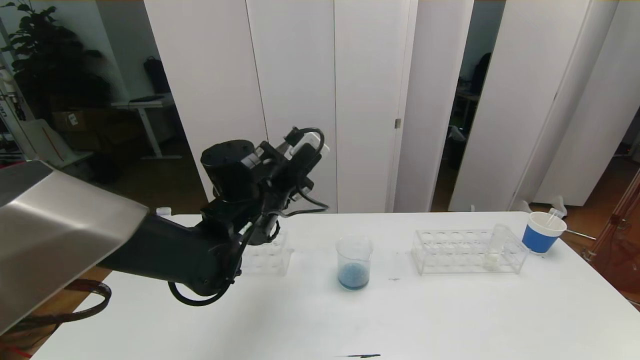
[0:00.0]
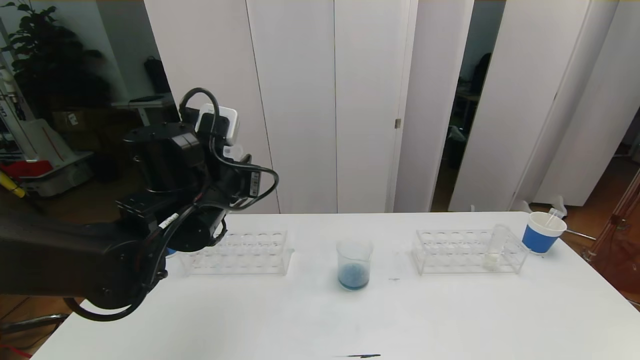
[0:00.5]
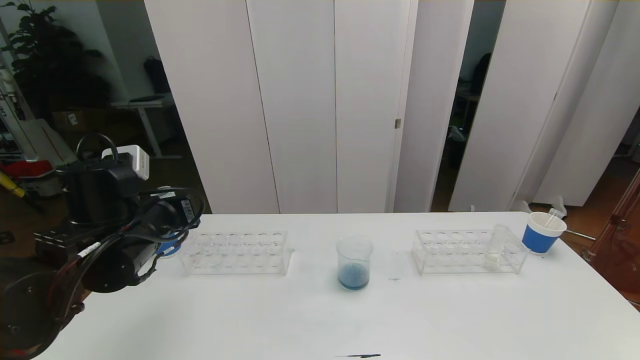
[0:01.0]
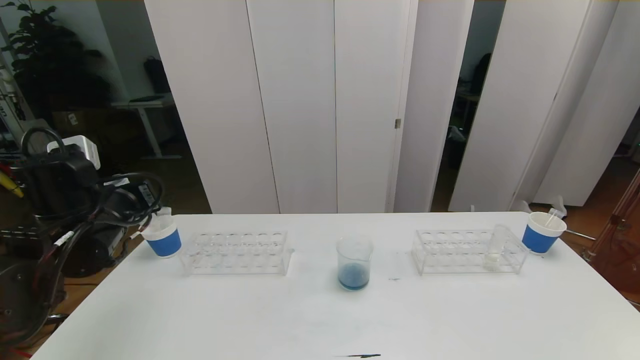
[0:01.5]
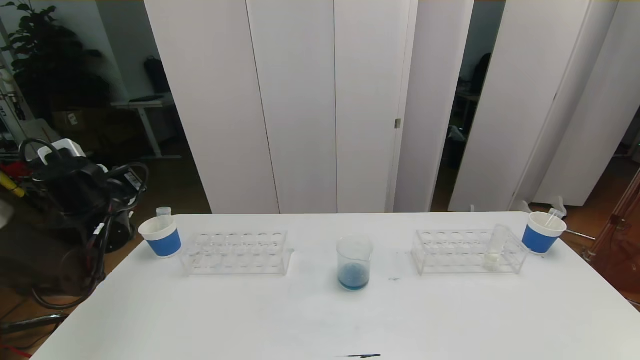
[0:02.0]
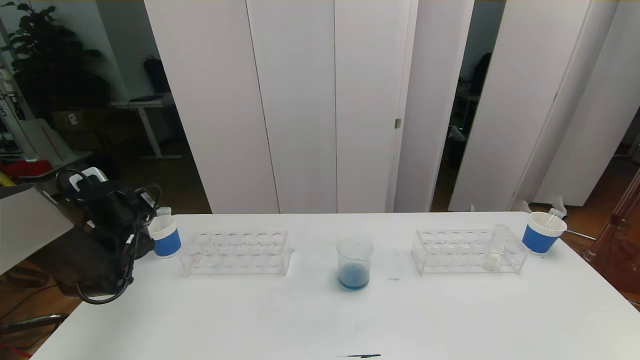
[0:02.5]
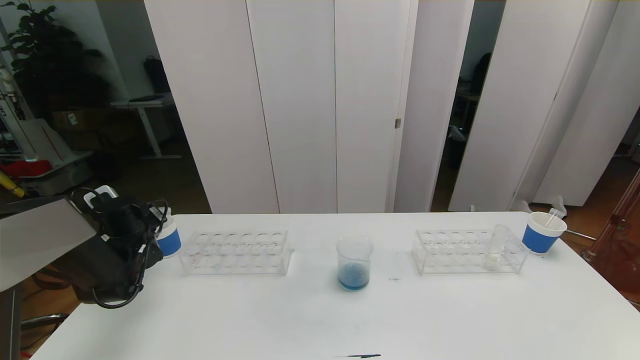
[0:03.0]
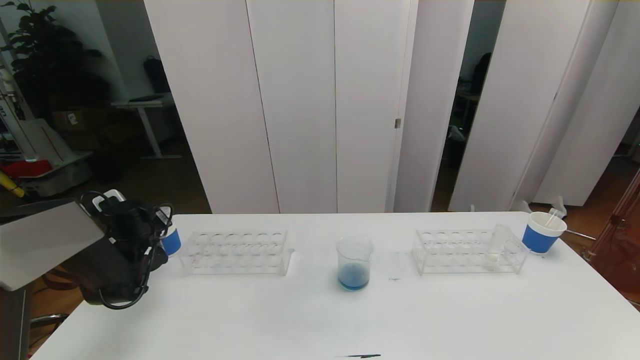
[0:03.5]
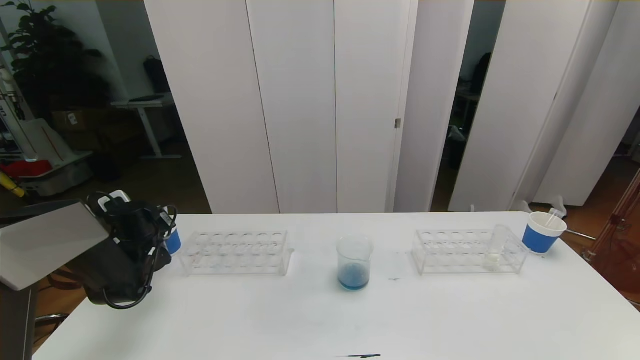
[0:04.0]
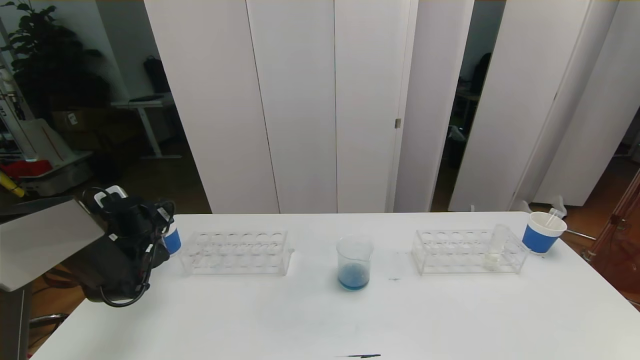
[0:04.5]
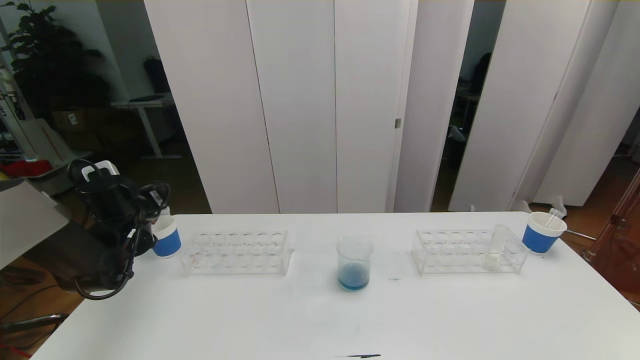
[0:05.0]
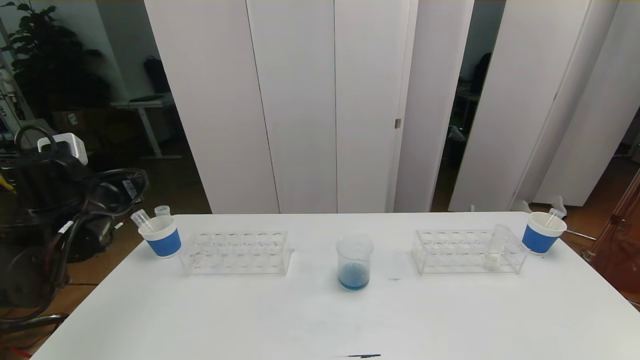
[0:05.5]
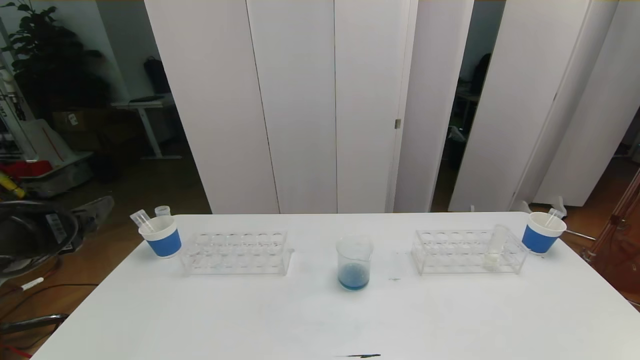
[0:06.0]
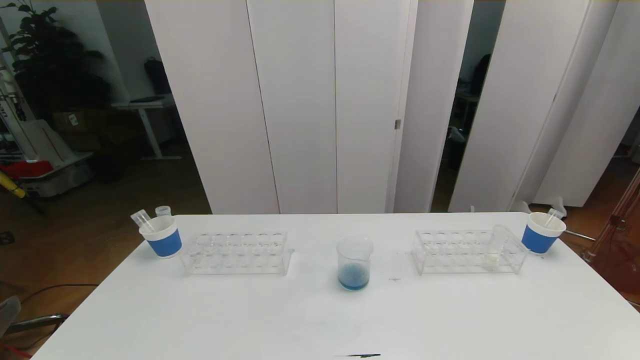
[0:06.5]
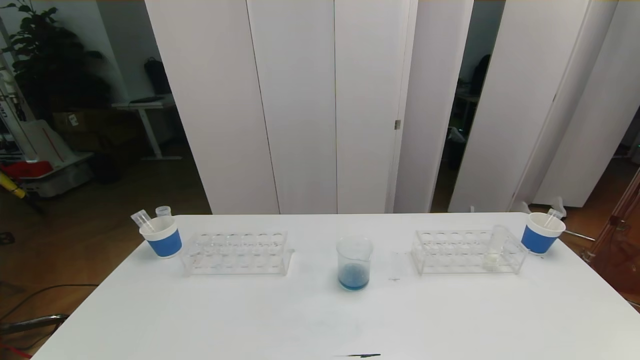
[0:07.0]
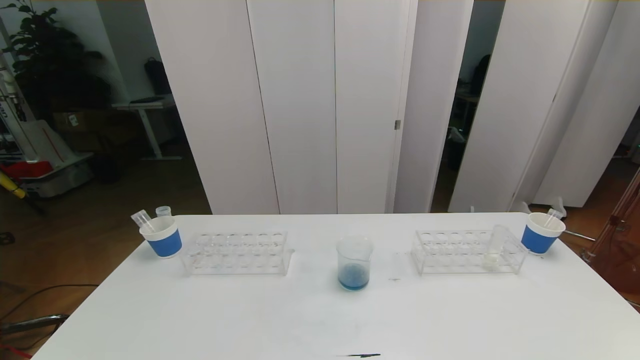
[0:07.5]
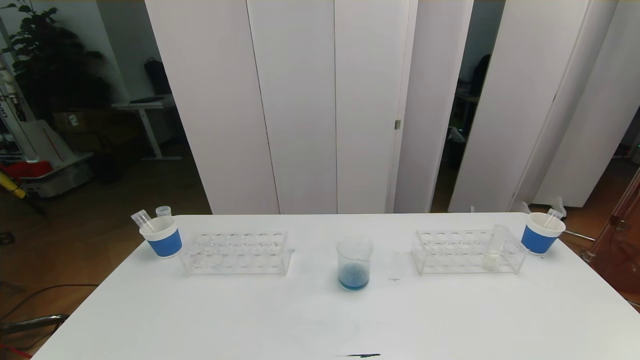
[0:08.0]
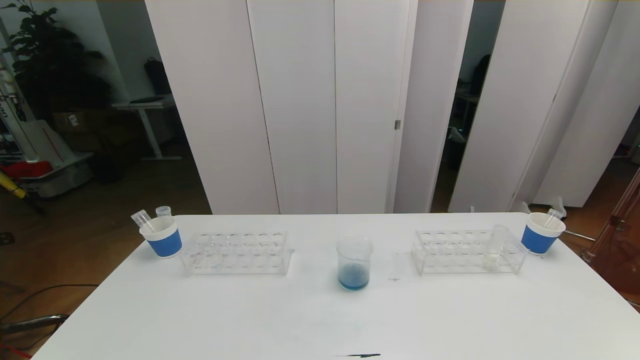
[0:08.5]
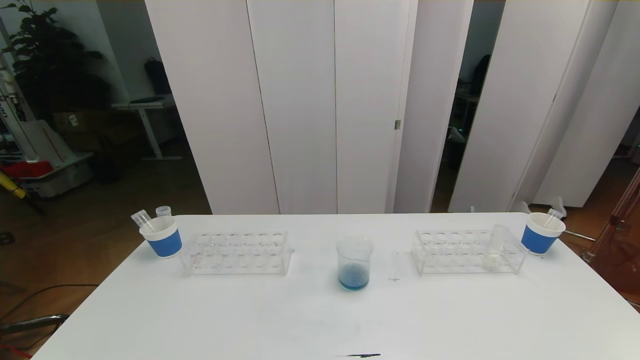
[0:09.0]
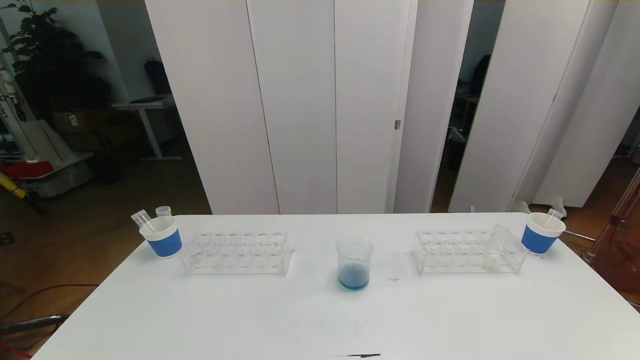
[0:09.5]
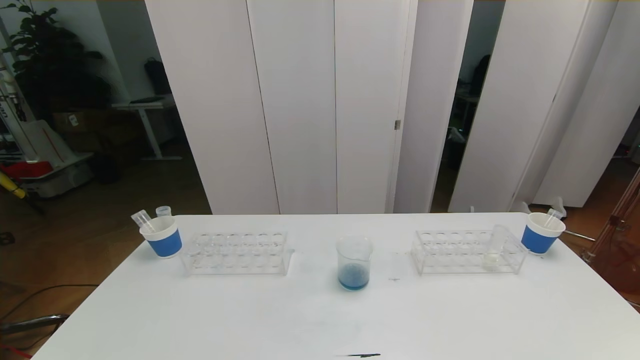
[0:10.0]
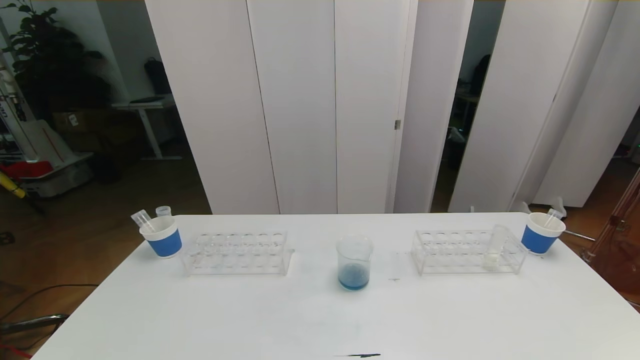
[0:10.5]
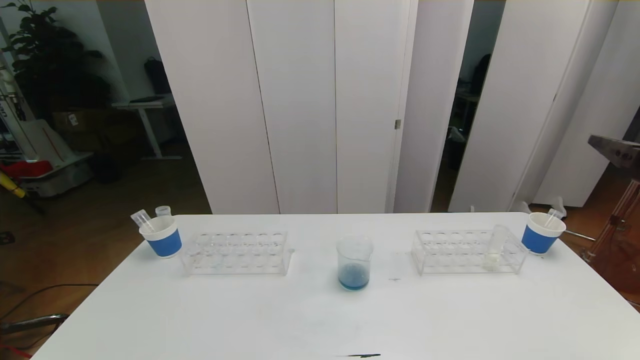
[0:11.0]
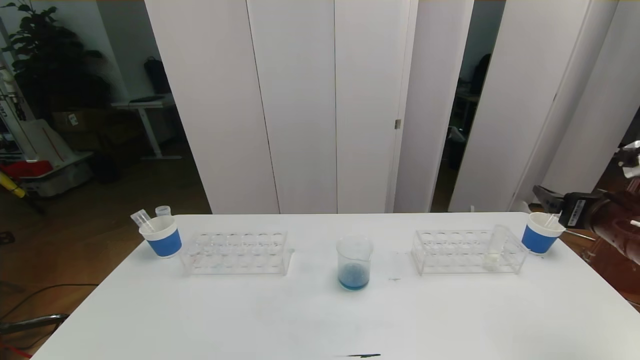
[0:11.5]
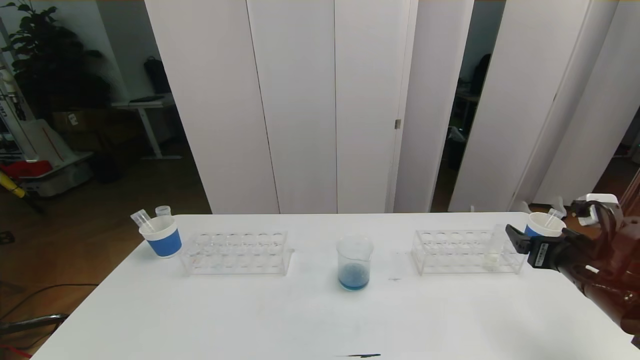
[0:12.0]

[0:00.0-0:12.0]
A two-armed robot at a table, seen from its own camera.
Task of the whole recording: pick up the test tube with red pigment the test tube with blue pigment and the test tube with white pigment by grippers and pour them into the beaker.
Step, 0:00.0 to 0:09.0: Pour the orange reagent into the graduated cylinder and place the test tube into the paper cup.
0:00.0 to 0:02.0: The left gripper is displaced to the left by roughly 25 cm.
0:02.0 to 0:04.0: The left gripper moves downward and forward, about 10 cm, and opens.
0:04.0 to 0:06.0: The left gripper goes approximately 30 cm backward and upward, and opens up.
0:10.0 to 0:12.0: The right gripper shifts some 30 cm forward and downward.

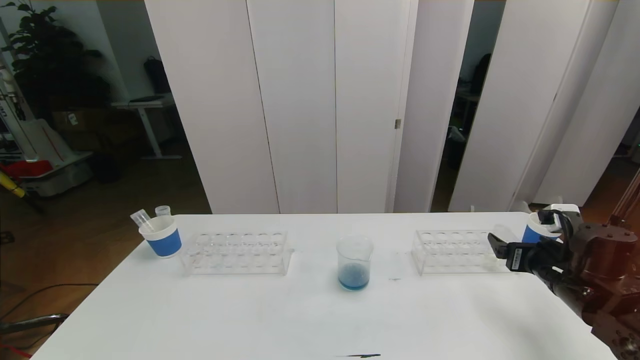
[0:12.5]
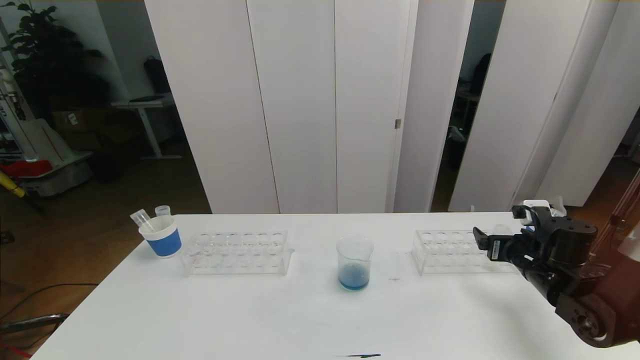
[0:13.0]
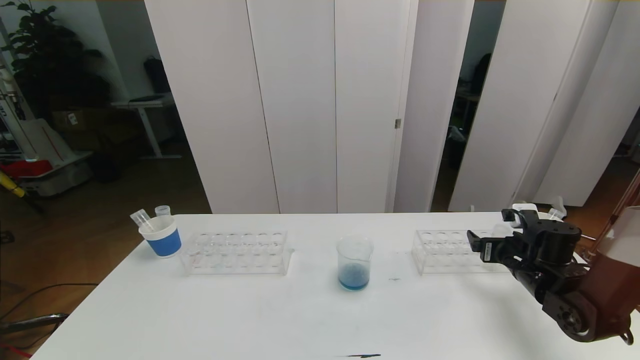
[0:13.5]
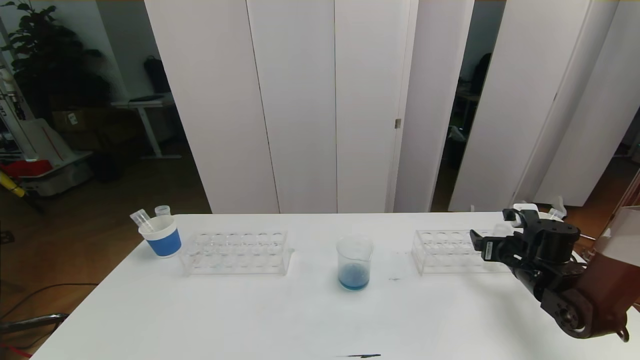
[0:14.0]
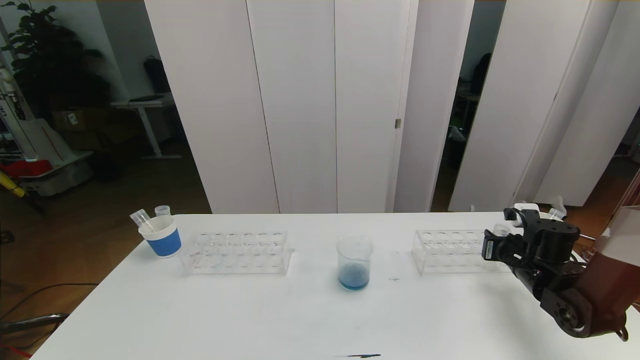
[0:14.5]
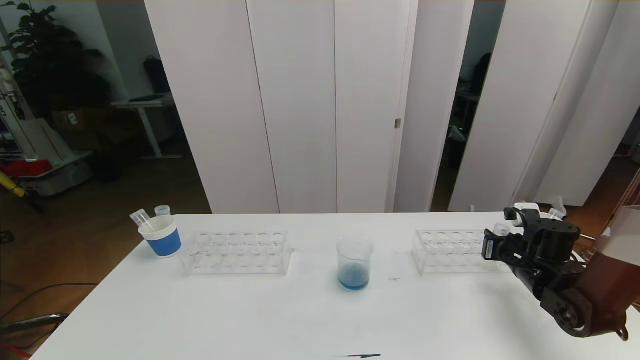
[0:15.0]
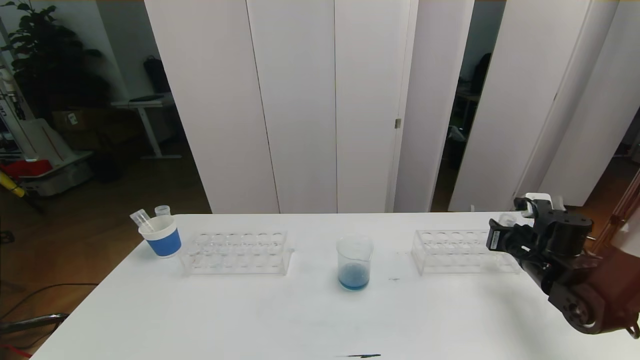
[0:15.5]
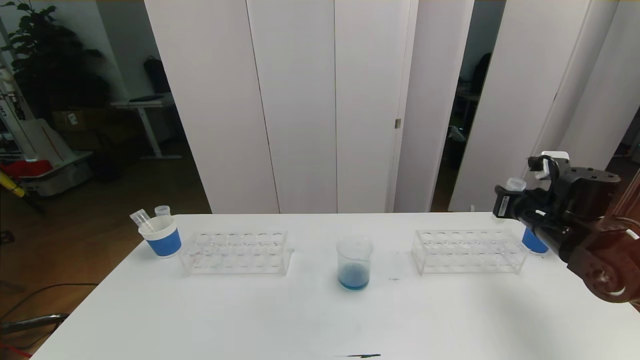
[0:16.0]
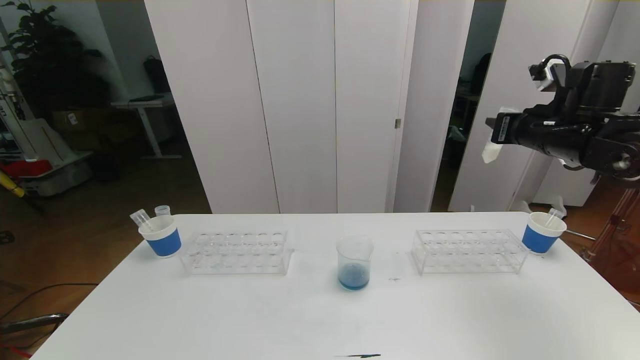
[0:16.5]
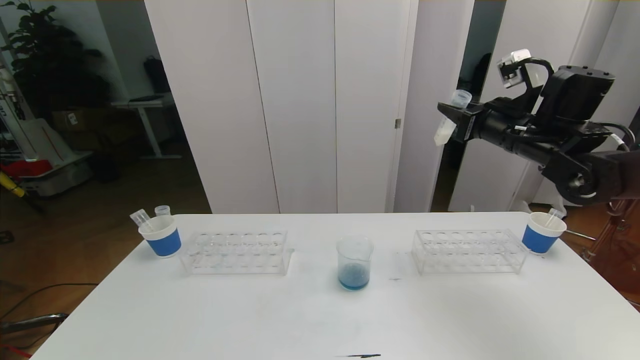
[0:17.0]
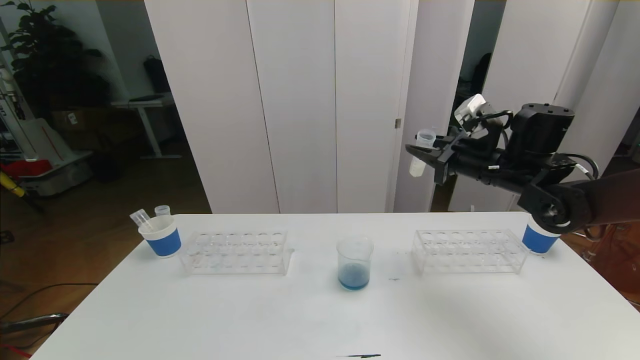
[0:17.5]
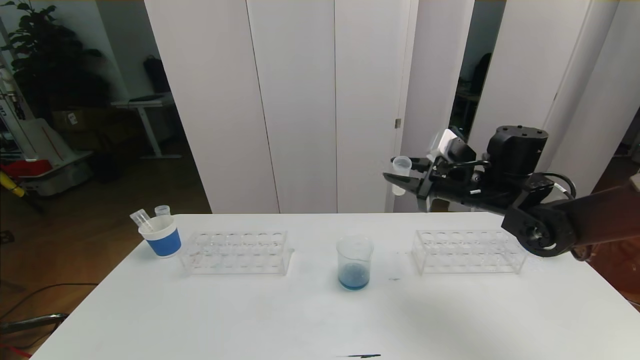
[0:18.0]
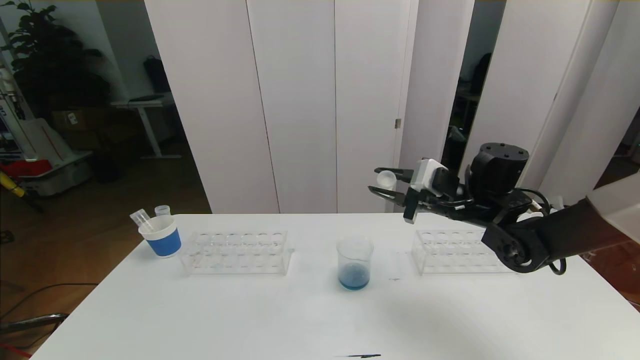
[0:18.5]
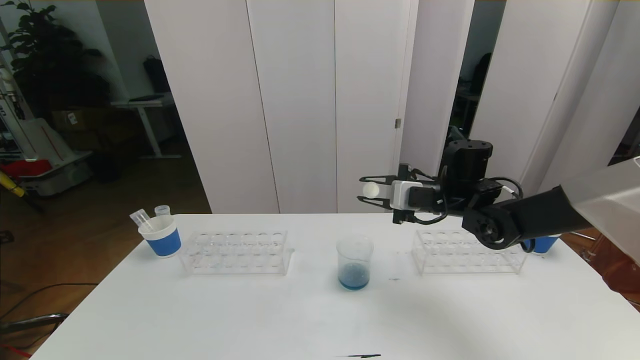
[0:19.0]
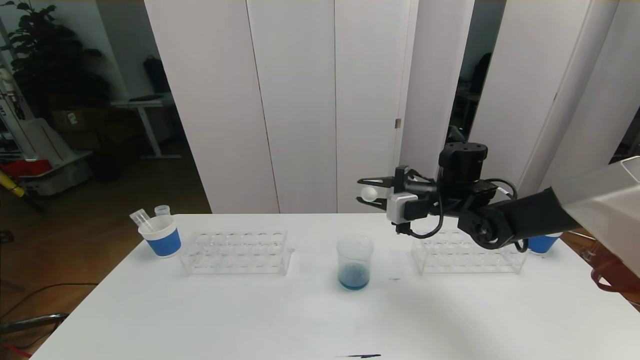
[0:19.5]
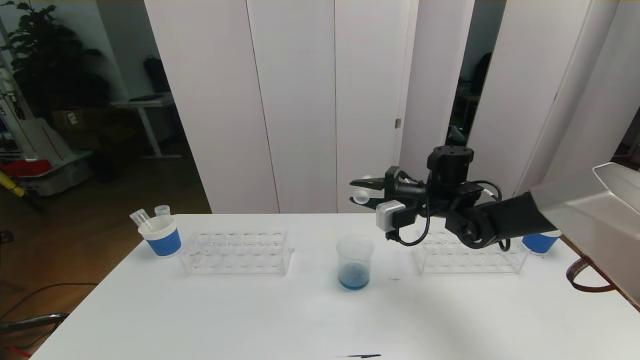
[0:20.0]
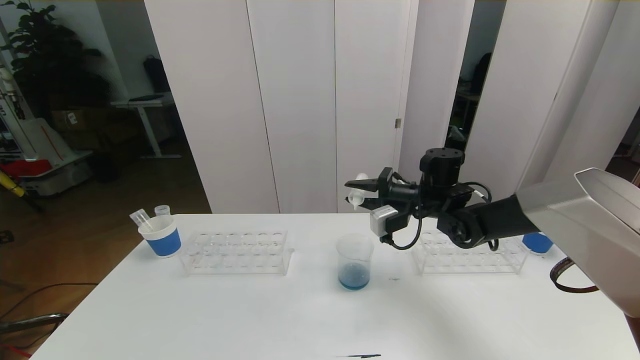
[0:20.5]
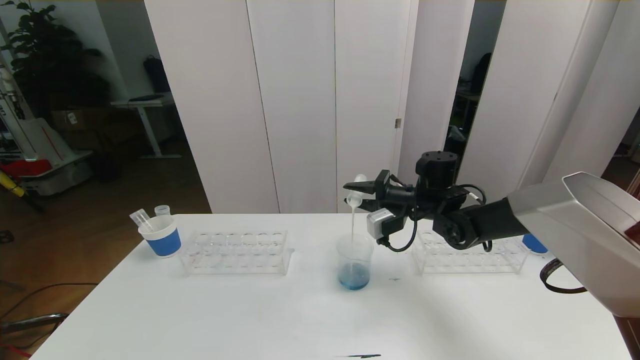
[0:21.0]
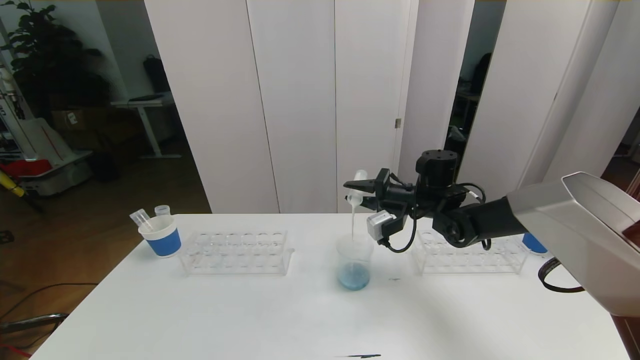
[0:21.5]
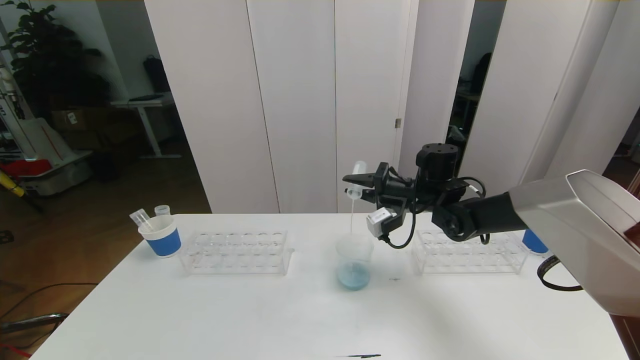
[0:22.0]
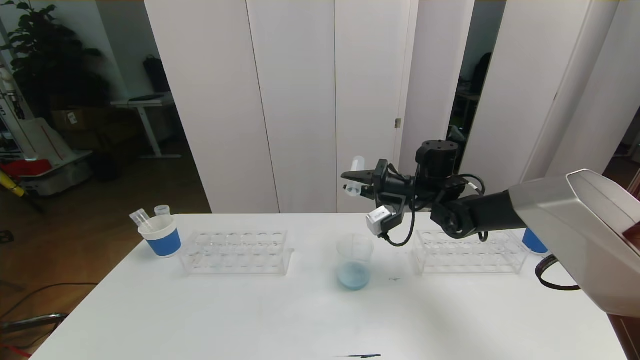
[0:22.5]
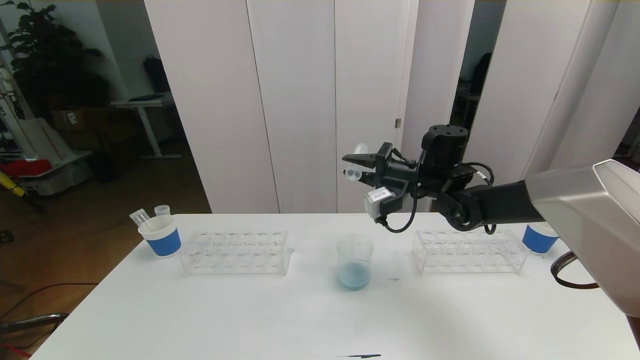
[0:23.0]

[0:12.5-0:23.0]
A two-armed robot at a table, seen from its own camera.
Task of the whole recording: pick up the test tube with red pigment the test tube with blue pigment and the test tube with white pigment by grippers and pour them into the beaker.
0:12.5 to 0:14.5: The right gripper travels forward by about 5 cm, and closes up.
0:14.5 to 0:16.5: The right gripper shifts about 25 cm upward.
0:16.5 to 0:19.0: The right gripper is displaced to the left and downward by approximately 20 cm.
0:19.0 to 0:21.0: The right gripper ends up about 5 cm from where it was.
0:21.0 to 0:23.0: The right gripper is displaced upward by about 5 cm.
